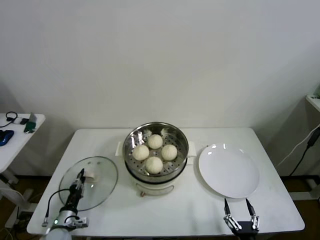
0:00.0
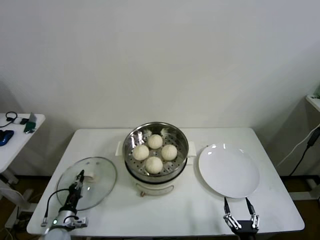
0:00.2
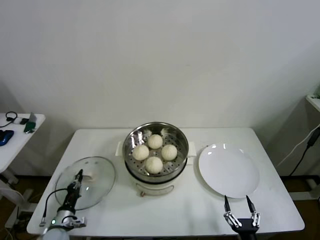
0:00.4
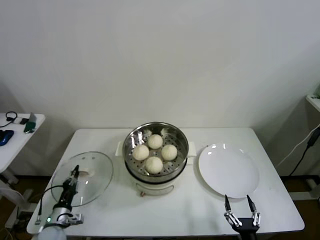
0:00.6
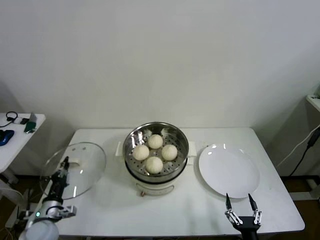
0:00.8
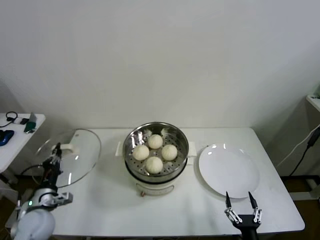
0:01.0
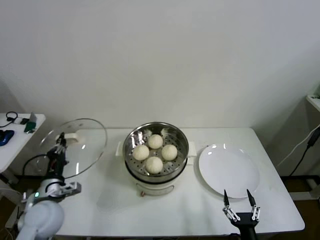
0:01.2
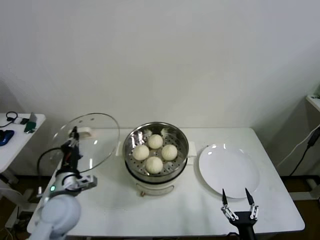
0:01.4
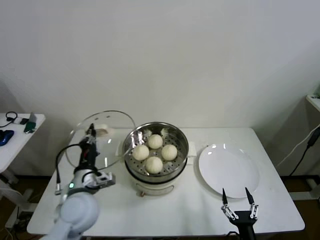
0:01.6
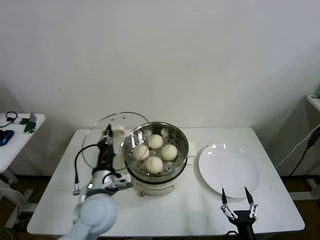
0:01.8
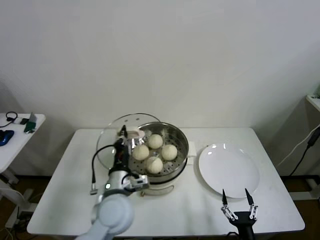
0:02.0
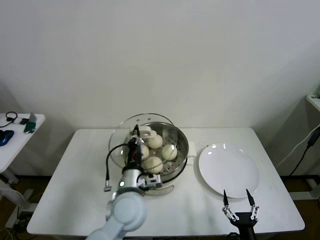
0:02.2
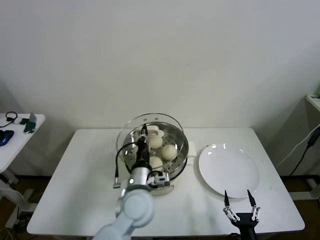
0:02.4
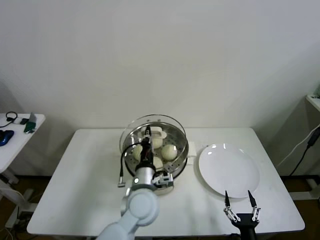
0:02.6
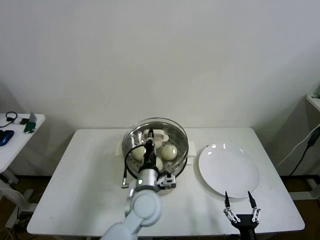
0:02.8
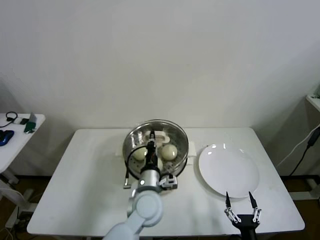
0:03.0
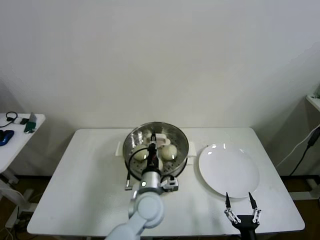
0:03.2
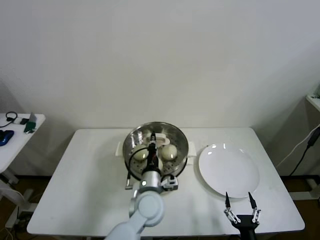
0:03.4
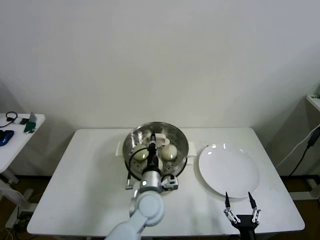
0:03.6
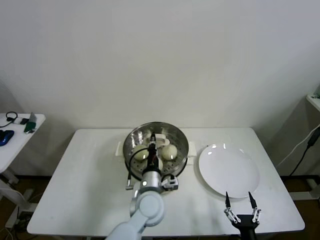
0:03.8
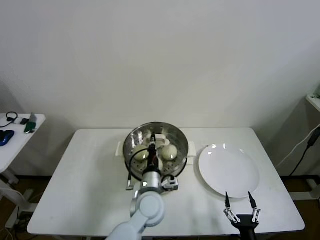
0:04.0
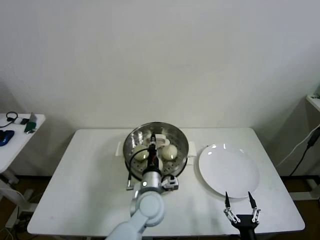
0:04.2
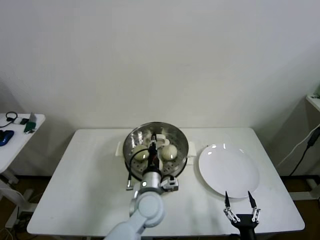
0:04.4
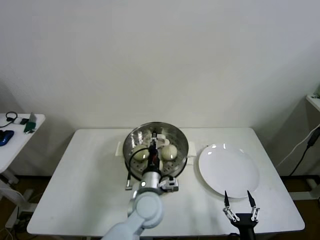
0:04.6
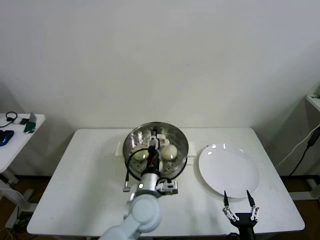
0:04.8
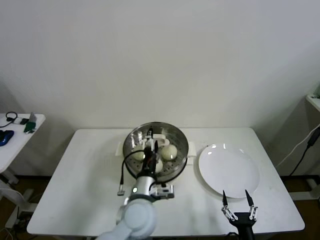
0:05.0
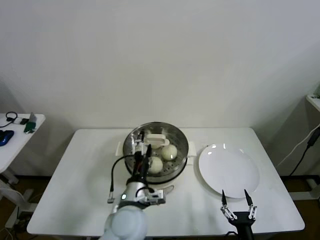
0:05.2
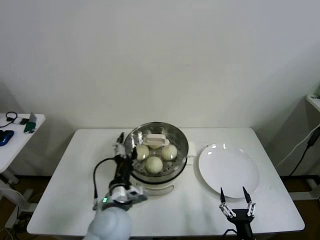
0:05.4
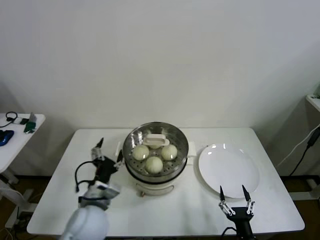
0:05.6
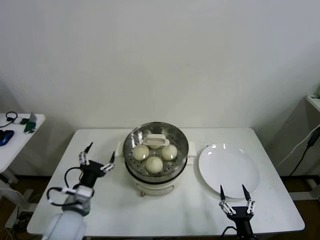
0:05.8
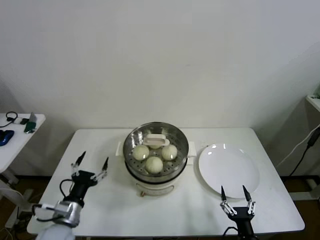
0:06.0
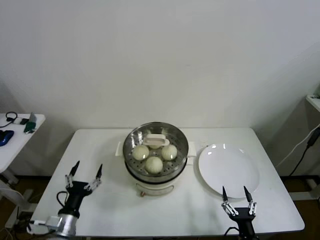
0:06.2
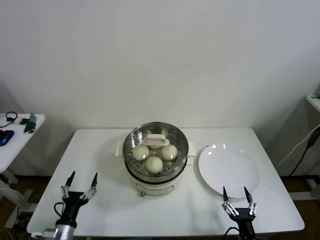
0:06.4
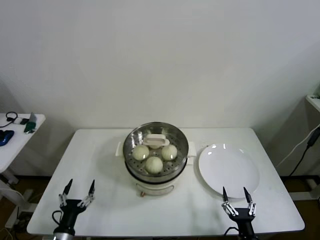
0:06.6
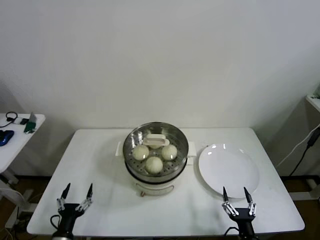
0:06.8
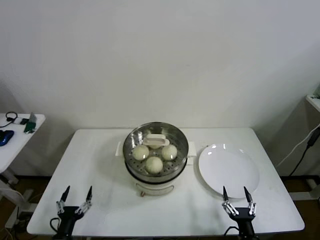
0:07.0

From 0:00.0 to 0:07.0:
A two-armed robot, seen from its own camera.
Step, from 0:00.4 to 0:04.2: Place the pot lid on the steamer with left gripper.
From 0:00.0 to 0:01.4: The left gripper moves upward, roughly 25 cm, and closes its fingers.
From 0:01.4 to 0:02.8: The left gripper shifts approximately 25 cm to the right.
From 0:02.8 to 0:04.2: The grippers move only a little.
From 0:04.2 to 0:05.6: The left gripper moves to the left, backward and upward, some 15 cm, and opens.
From 0:05.6 to 0:07.0: The left gripper heads downward, to the left and backward, covering about 30 cm.
